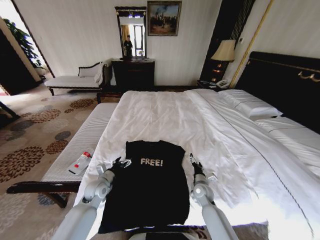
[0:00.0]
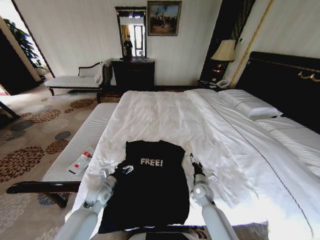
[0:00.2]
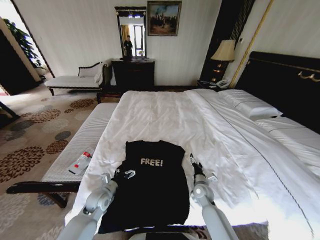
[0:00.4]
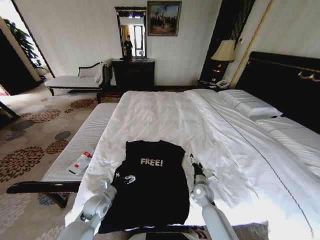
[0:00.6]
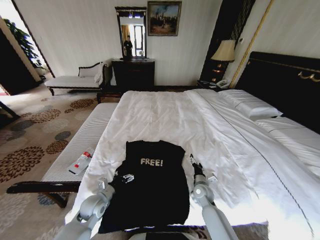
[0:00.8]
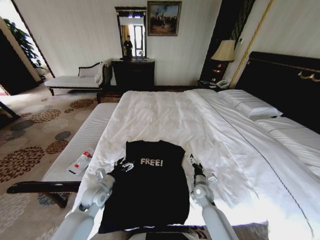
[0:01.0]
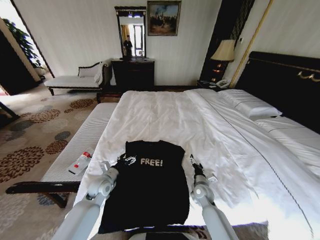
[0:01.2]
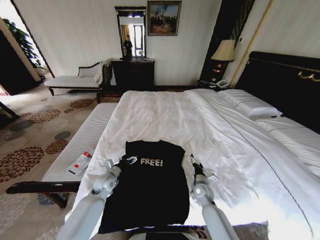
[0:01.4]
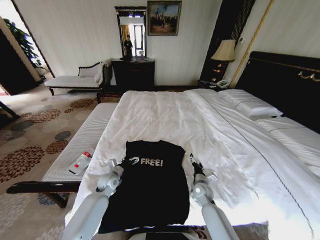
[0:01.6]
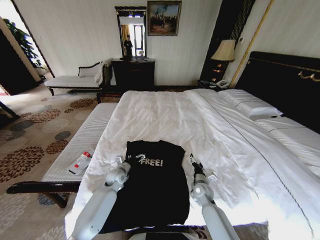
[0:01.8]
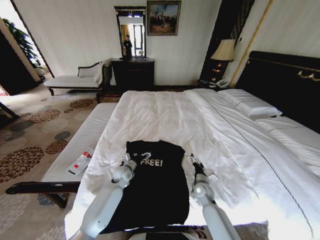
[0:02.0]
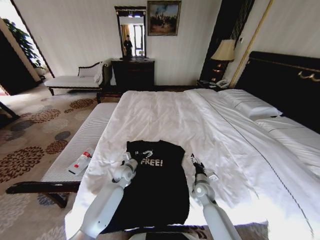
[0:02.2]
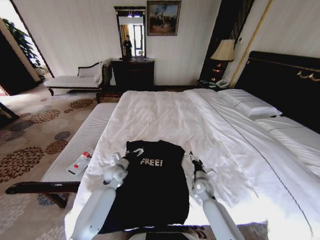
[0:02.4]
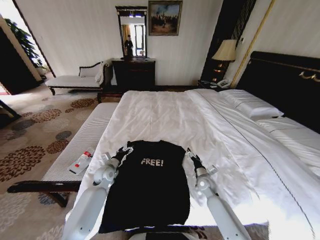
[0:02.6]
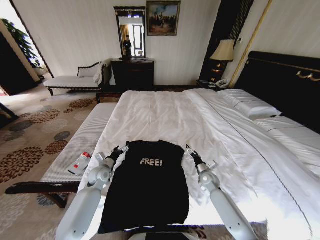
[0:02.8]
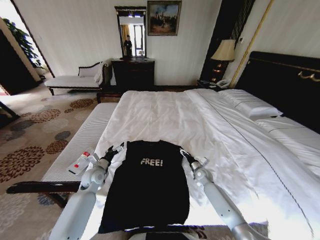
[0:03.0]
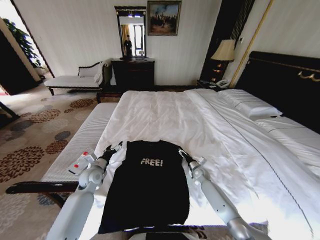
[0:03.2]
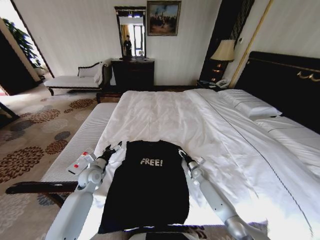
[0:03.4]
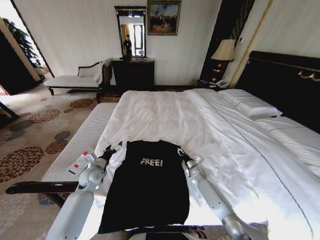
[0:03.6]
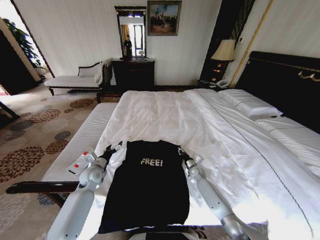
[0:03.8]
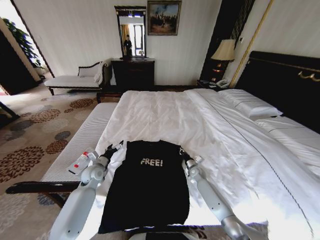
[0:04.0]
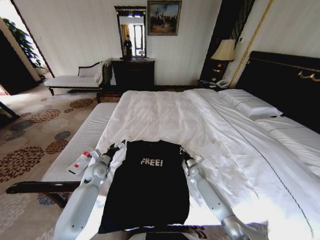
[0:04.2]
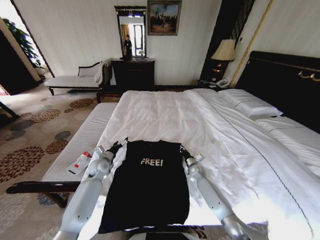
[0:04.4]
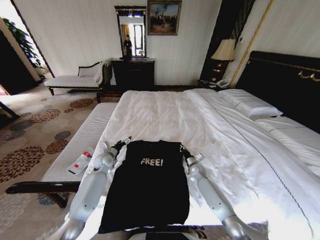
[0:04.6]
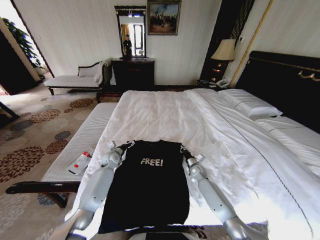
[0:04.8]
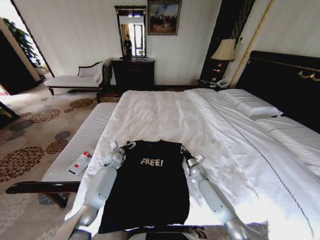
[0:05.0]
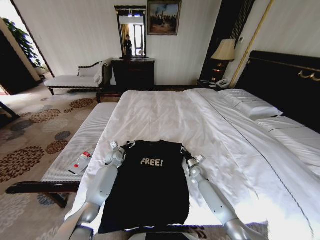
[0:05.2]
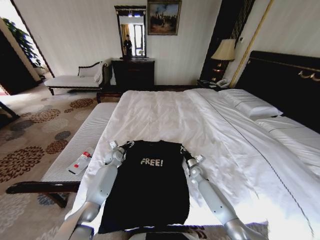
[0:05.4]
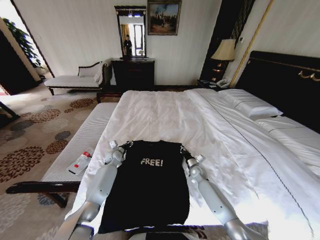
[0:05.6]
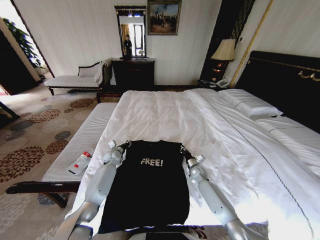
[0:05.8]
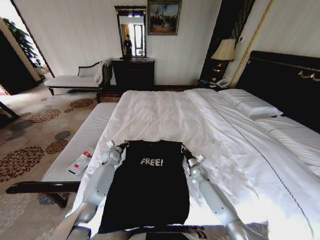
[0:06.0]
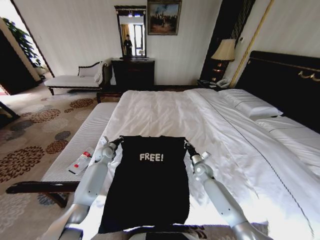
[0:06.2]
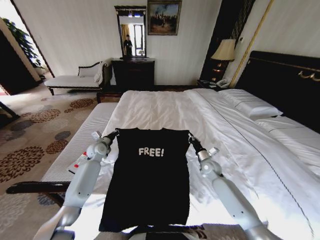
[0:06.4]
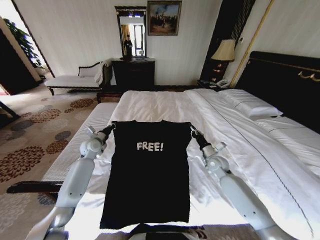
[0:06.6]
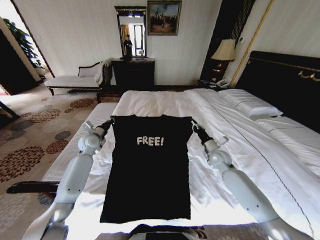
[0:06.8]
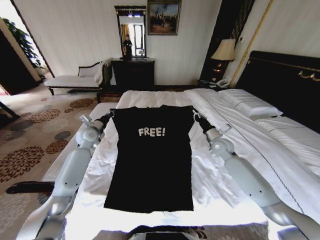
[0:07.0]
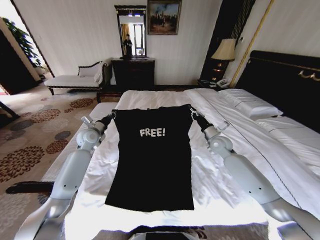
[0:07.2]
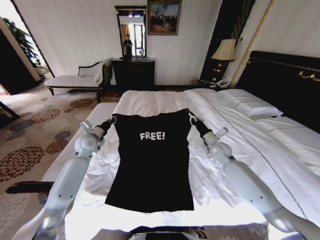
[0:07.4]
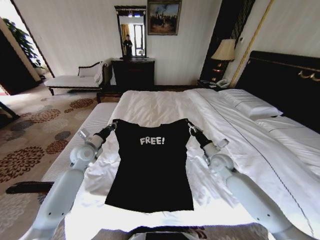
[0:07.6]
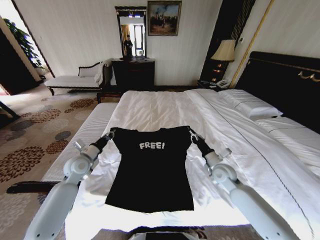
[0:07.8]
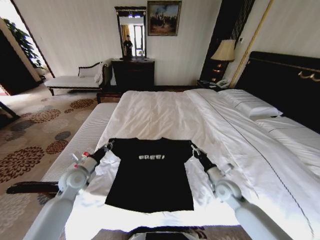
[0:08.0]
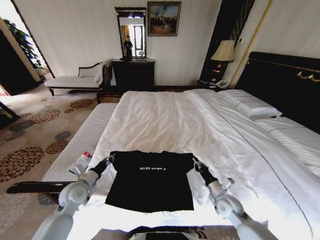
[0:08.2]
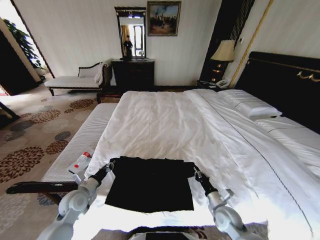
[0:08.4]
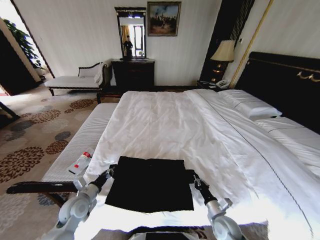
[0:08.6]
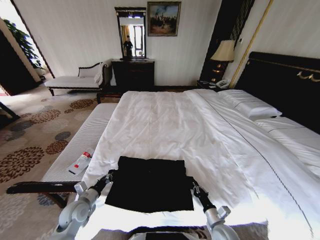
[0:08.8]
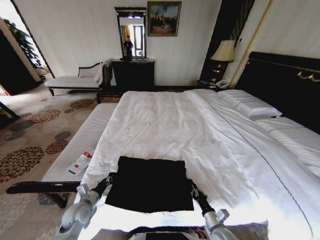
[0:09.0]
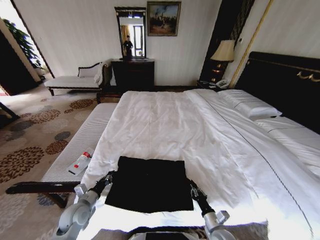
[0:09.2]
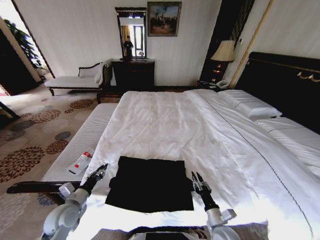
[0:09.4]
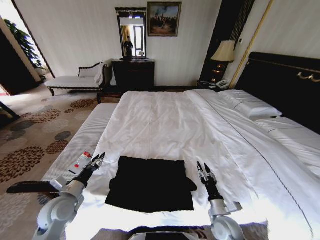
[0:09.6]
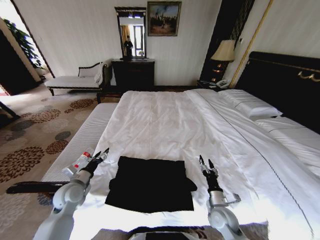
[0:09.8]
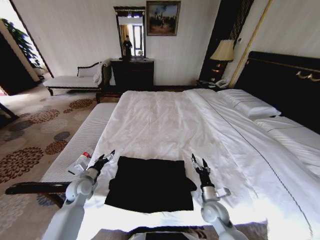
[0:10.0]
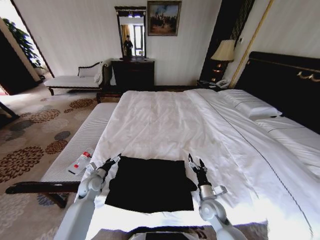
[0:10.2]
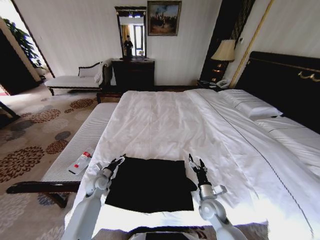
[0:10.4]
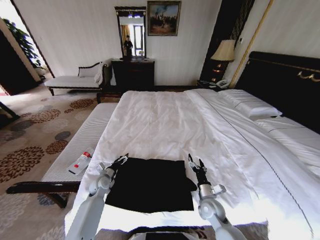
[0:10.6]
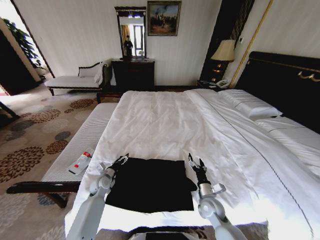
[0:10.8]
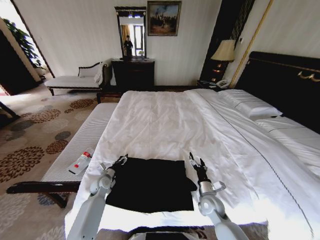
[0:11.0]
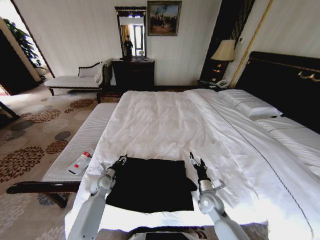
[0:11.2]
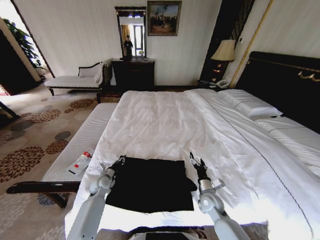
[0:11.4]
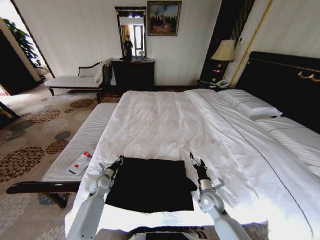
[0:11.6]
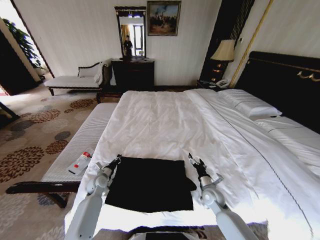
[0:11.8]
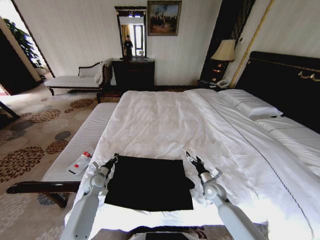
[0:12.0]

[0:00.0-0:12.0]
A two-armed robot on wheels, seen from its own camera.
Task of the whole recording: Fold the clothes on the bed.
0:00.0 to 0:01.6: The left gripper changes place by about 5 cm.
0:01.6 to 0:03.0: The left gripper travels to the left by approximately 5 cm; the right gripper shifts roughly 10 cm forward and to the right.
0:03.0 to 0:04.4: The left gripper travels forward by roughly 5 cm; the right gripper closes its fingers.
0:04.4 to 0:06.0: The left gripper goes roughly 10 cm forward, and closes its fingers.
0:06.0 to 0:07.6: The right gripper moves upward, about 15 cm. The left gripper shifts some 20 cm upward, backward and to the left.
0:07.6 to 0:09.0: The two grippers go about 30 cm backward and downward.
0:09.0 to 0:10.4: The left gripper heads forward, covering some 15 cm, and opens; the right gripper is displaced forward and upward by roughly 10 cm, and opens its fingers.
0:10.4 to 0:12.0: The right gripper goes some 10 cm forward; the left gripper closes up.

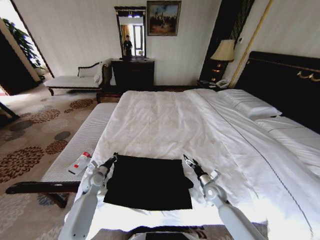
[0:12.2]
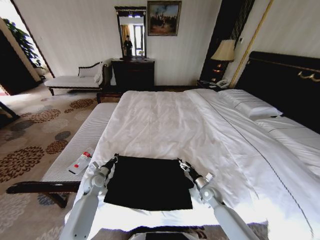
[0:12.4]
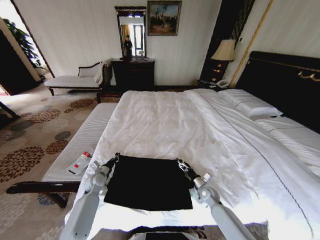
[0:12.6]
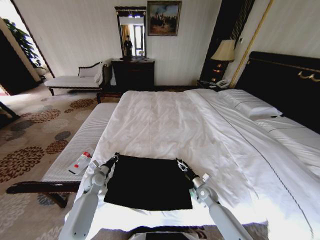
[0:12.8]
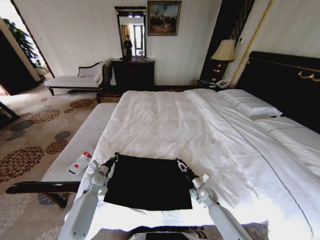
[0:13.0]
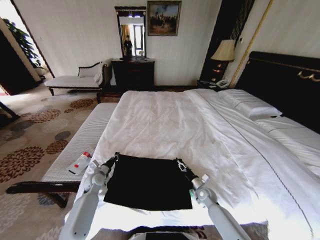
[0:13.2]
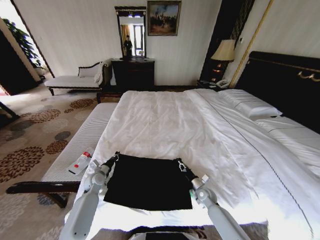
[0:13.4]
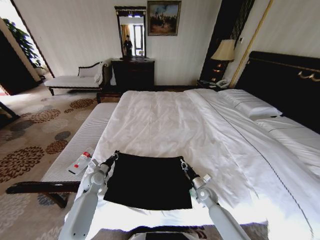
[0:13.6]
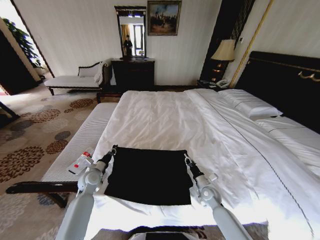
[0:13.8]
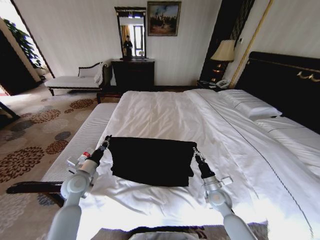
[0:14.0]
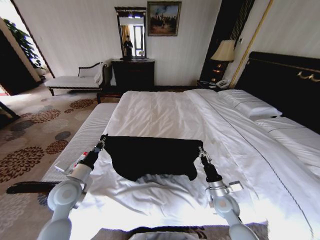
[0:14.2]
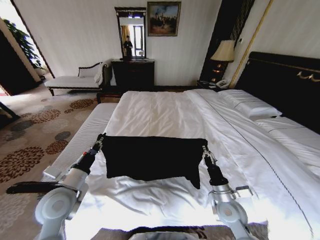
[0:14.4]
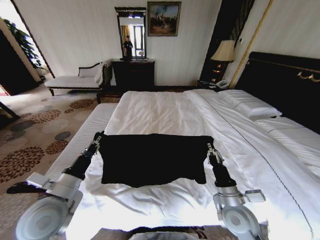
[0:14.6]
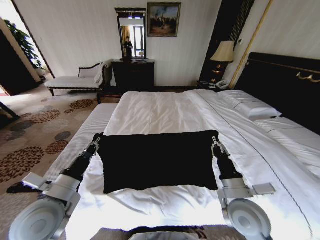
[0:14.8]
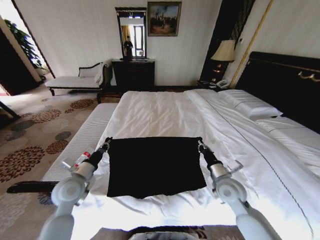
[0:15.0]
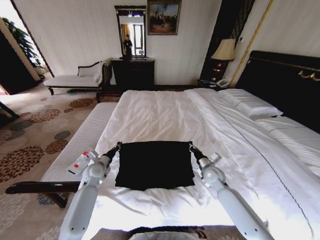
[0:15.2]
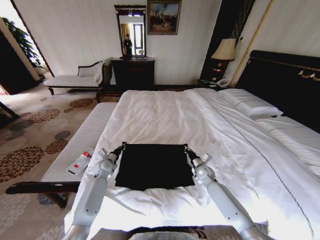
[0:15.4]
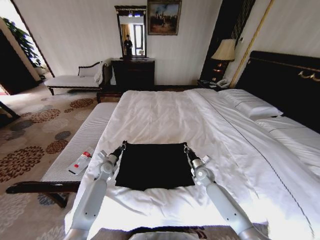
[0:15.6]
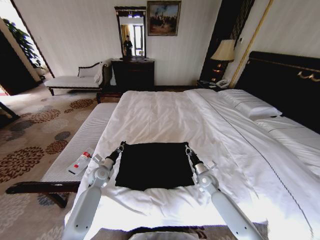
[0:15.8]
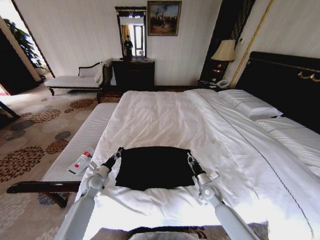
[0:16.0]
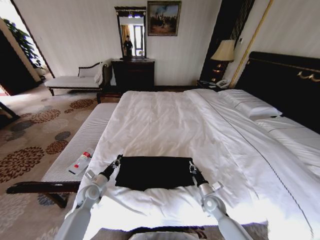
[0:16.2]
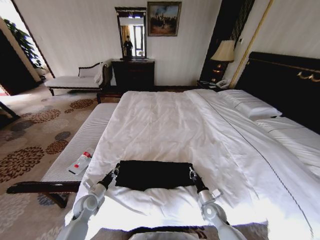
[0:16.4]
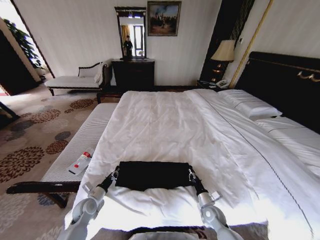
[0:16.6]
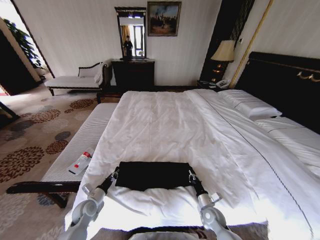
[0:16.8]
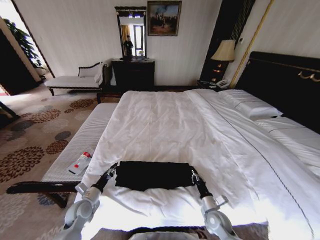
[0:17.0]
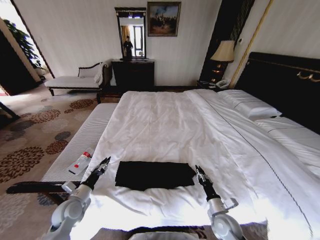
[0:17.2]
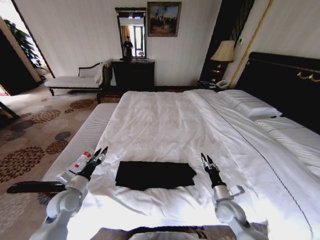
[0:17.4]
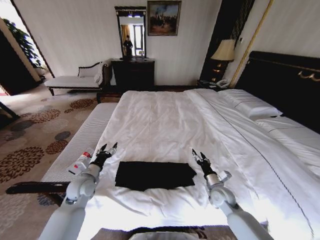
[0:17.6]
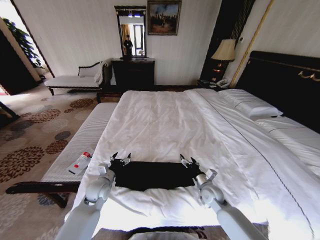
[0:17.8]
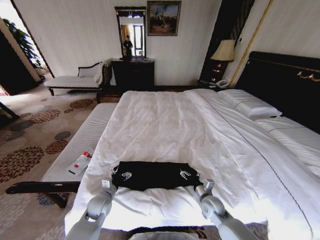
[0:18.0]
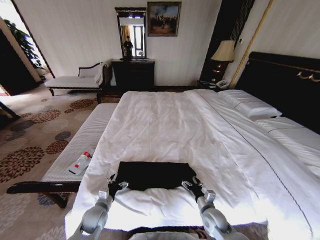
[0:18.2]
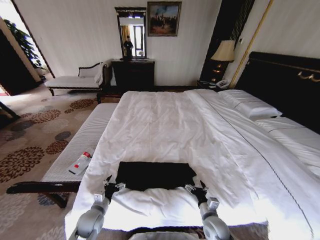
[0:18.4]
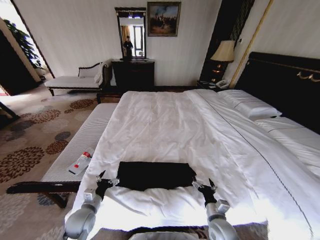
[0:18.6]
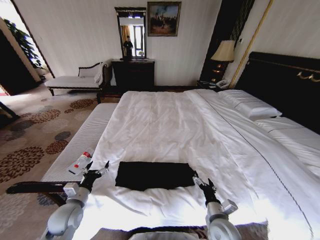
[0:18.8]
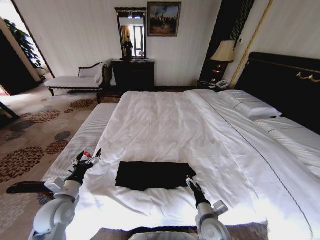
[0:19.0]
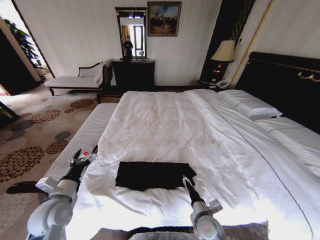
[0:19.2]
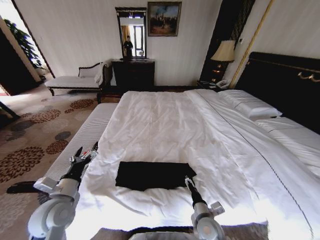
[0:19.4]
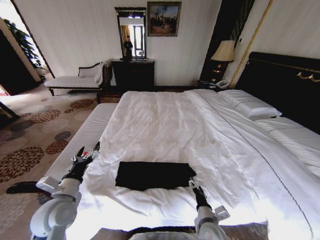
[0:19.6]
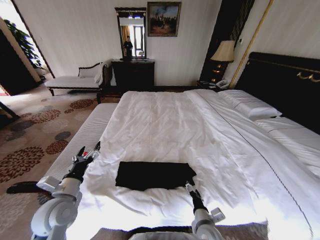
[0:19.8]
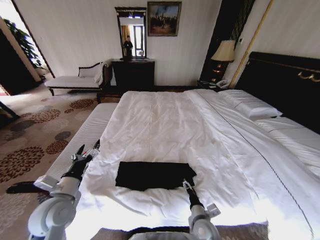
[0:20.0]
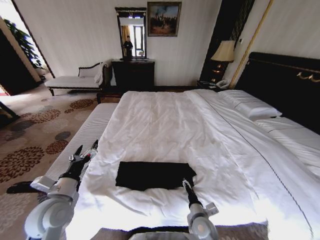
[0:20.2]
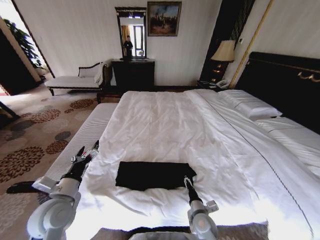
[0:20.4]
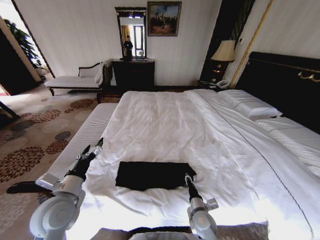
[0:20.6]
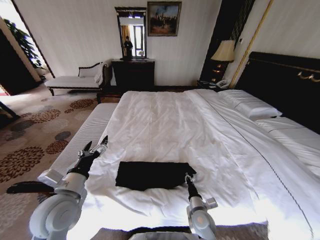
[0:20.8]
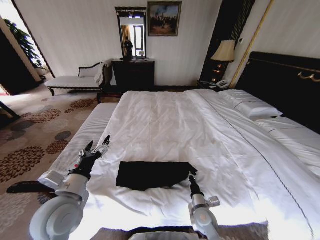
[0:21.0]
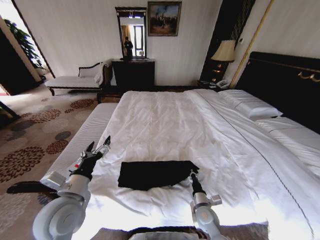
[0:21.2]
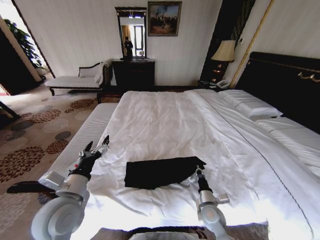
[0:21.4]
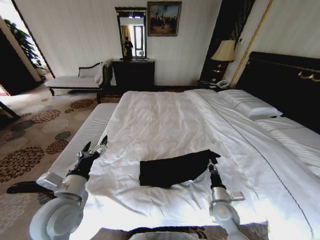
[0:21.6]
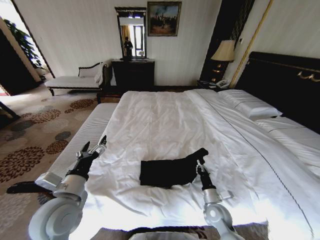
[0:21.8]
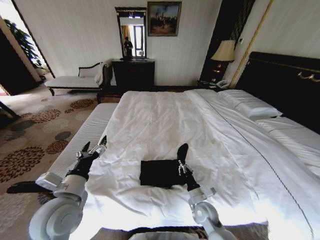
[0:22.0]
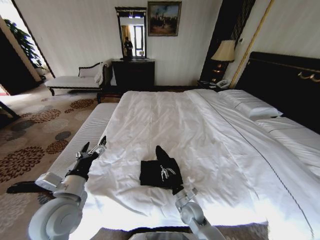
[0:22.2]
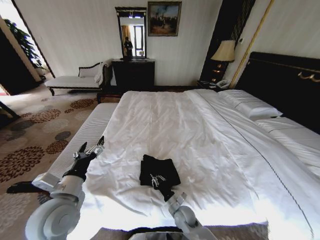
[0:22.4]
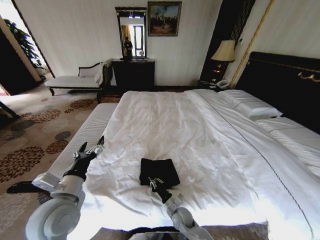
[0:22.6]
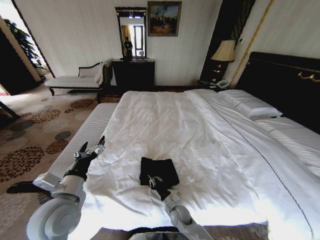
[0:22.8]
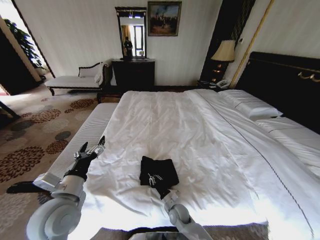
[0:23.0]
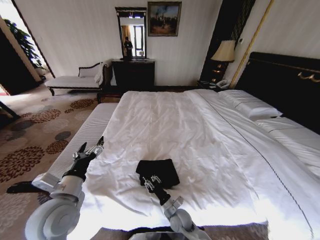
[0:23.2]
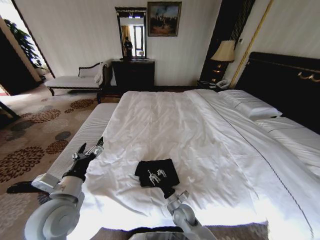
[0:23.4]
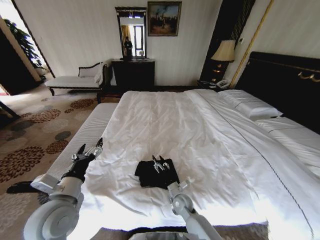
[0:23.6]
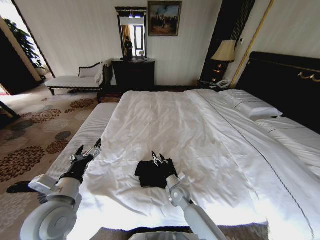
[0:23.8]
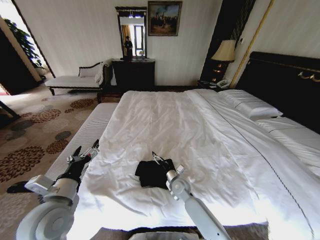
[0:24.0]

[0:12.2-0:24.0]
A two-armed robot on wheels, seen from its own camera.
Task of the whole recording: Fold the clothes on the bed.
0:12.2 to 0:13.6: The right gripper travels downward by about 5 cm, and closes up.
0:13.6 to 0:15.2: The right gripper moves upward, approximately 15 cm; the left gripper goes upward and returns, about 20 cm each way.
0:15.2 to 0:16.6: The left gripper travels backward and downward by roughly 15 cm, while the right gripper moves downward and backward, about 20 cm.
0:16.6 to 0:18.2: The left gripper shifts roughly 5 cm to the right, moves roughly 15 cm upward and comes back, and opens its fingers. Meanwhile the right gripper swings forward and backward, about 10 cm each way, with 2 reversals, and opens.
0:18.2 to 0:19.6: The left gripper shifts about 20 cm upward; the right gripper travels upward, backward and to the left by roughly 10 cm.
0:19.6 to 0:21.0: The right gripper travels forward by some 5 cm, and closes its fingers, while the left gripper shifts approximately 10 cm upward and to the right.
0:21.0 to 0:22.6: The right gripper goes some 10 cm downward and to the left.
0:22.6 to 0:24.0: The right gripper shifts about 15 cm forward and upward, and opens its fingers.
